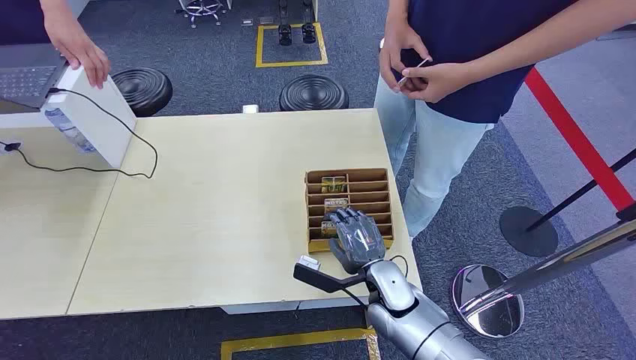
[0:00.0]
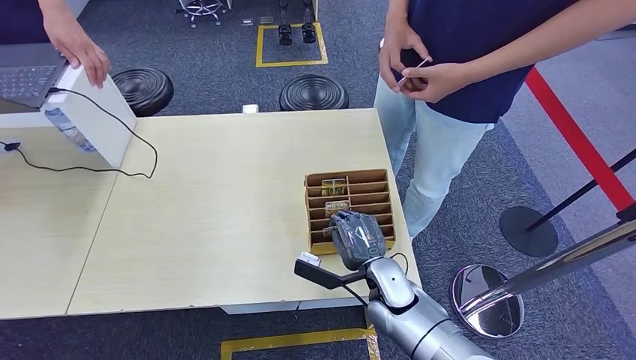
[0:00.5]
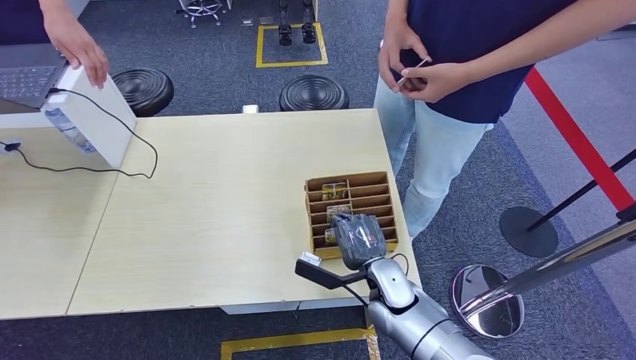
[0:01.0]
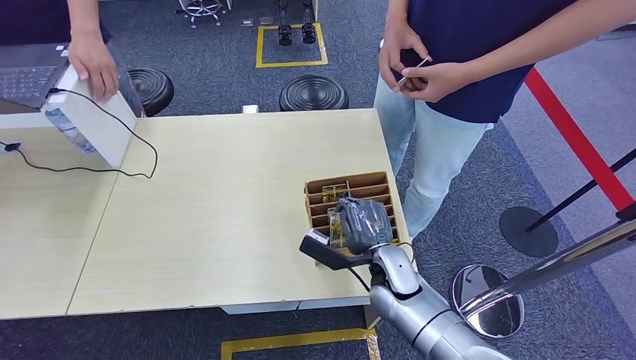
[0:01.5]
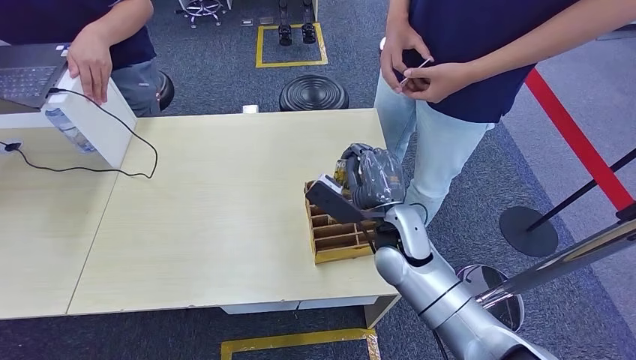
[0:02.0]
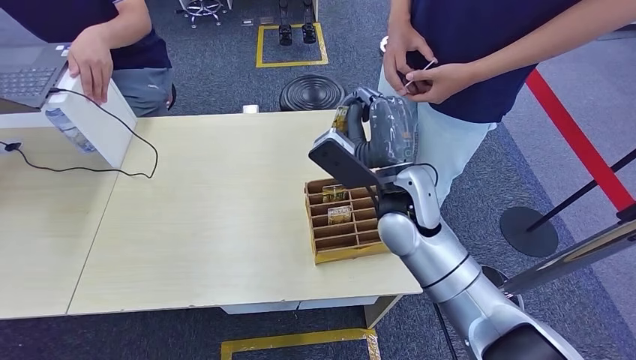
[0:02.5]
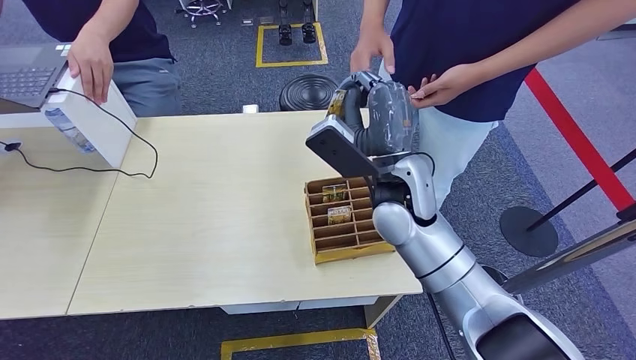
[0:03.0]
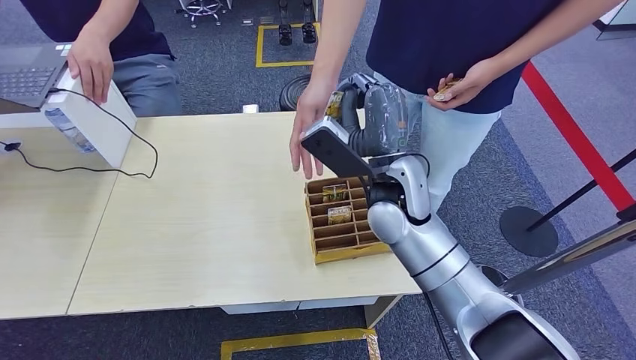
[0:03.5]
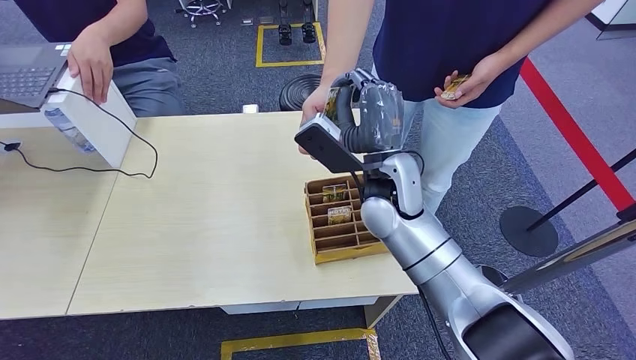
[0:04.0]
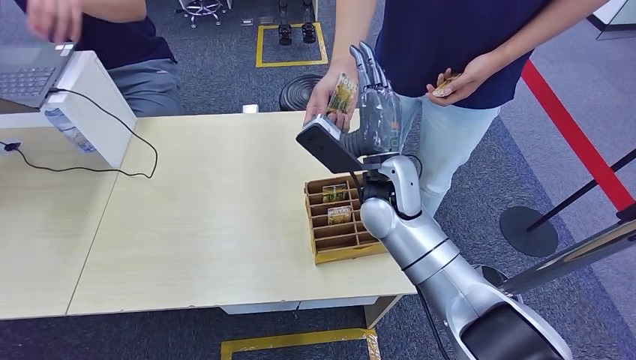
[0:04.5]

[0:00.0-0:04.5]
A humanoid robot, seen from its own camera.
Step, 0:00.0 to 0:02.5: Pick up the key card from the card box.
Step, 0:03.0 to 0:04.5: Hand the key card to the target.

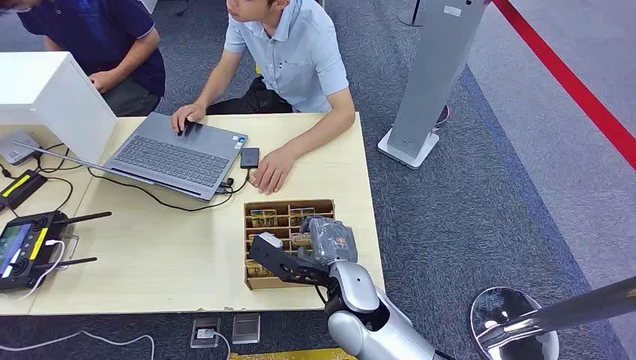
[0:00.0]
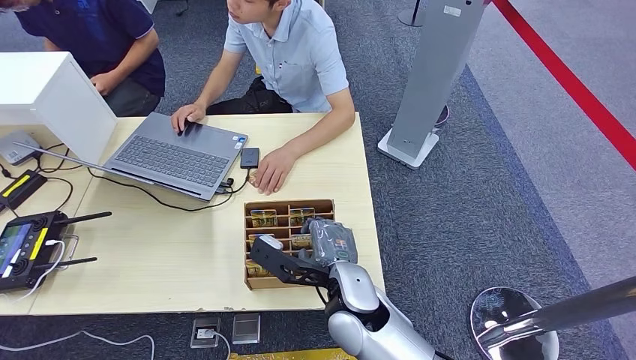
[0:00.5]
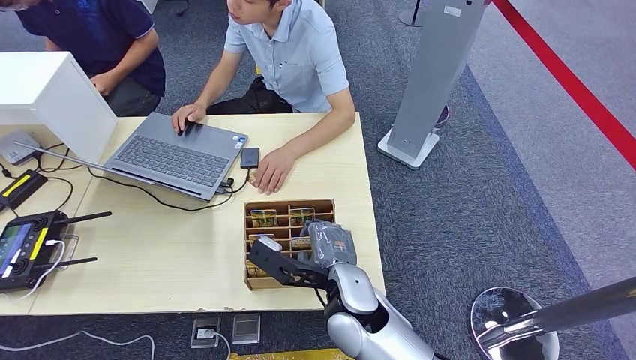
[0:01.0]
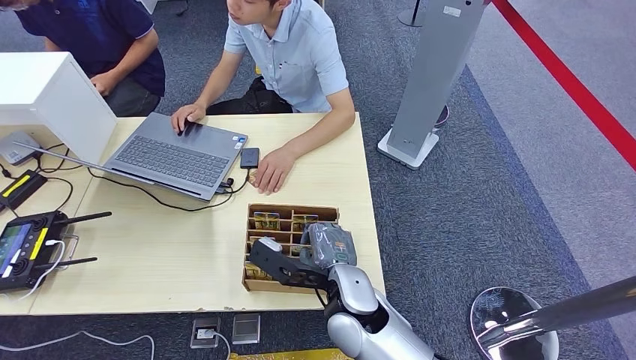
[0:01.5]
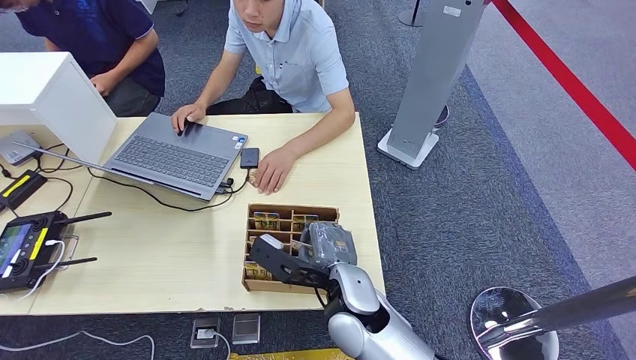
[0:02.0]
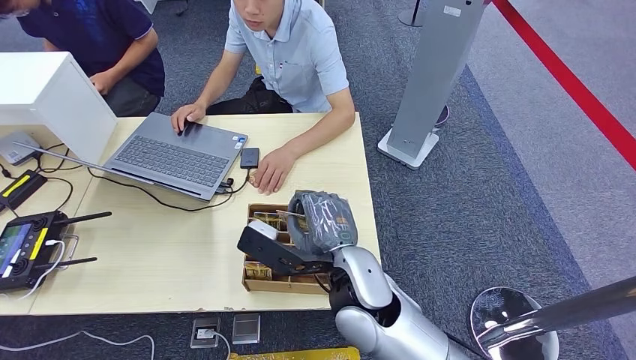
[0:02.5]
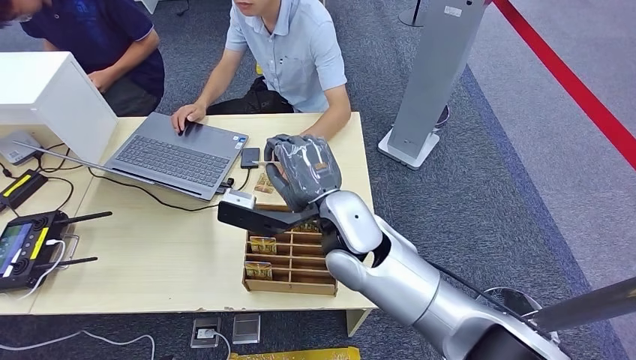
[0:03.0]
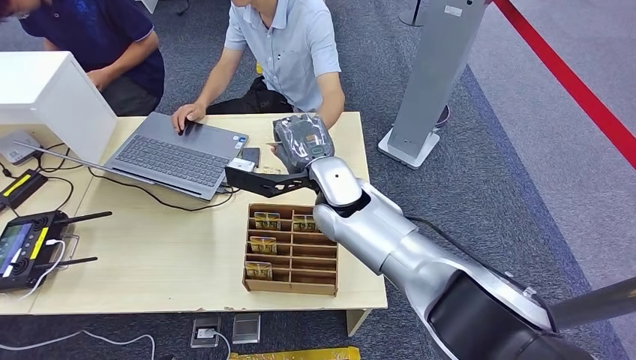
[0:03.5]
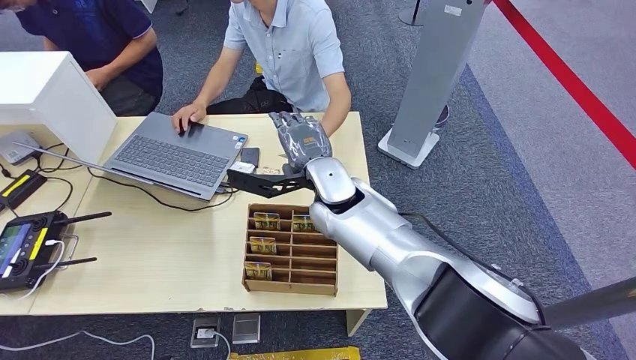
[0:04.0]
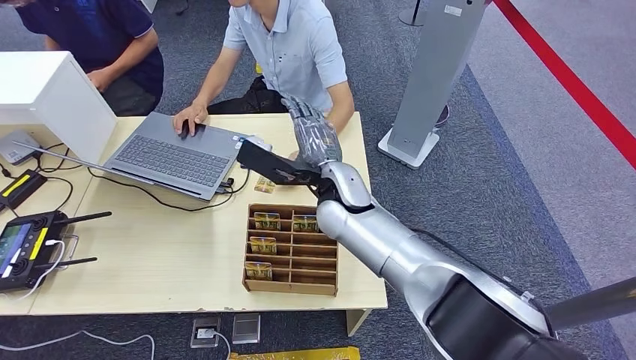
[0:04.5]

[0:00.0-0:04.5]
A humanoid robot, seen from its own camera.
Step, 0:00.0 to 0:02.5: Pick up the key card from the card box.
Step, 0:03.0 to 0:04.5: Hand the key card to the target.
0:02.0 to 0:04.5: The right hand travels forward and upward by approximately 15 cm.
